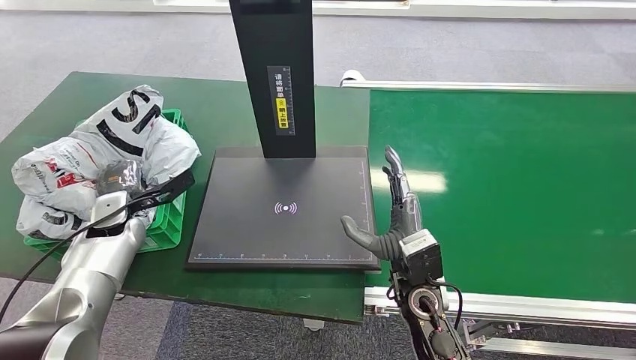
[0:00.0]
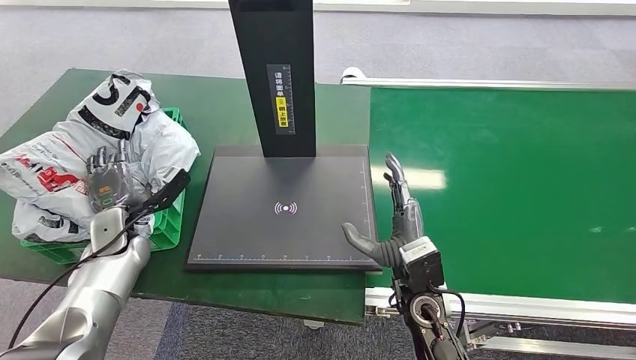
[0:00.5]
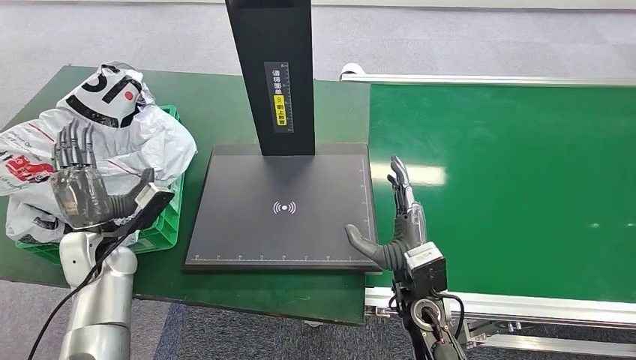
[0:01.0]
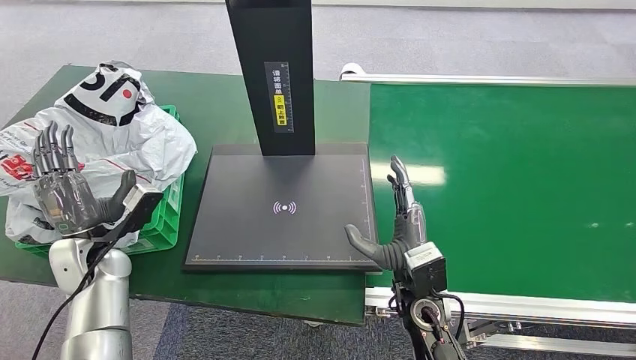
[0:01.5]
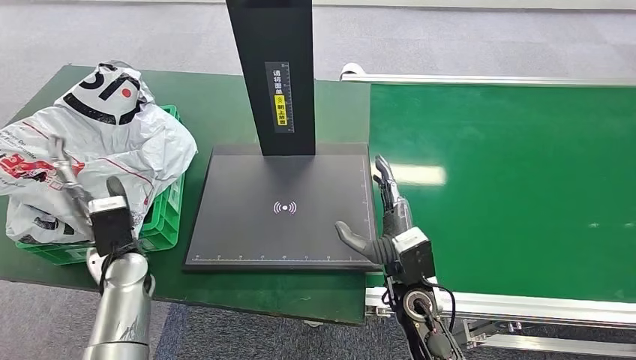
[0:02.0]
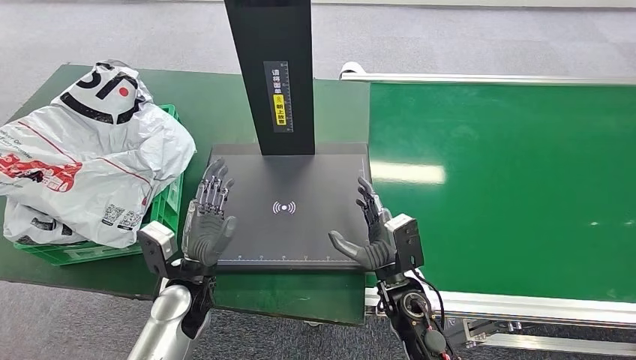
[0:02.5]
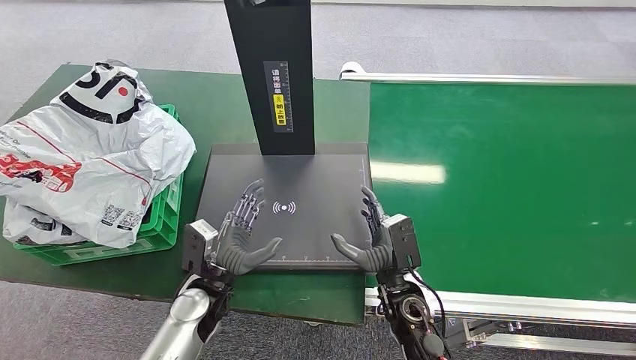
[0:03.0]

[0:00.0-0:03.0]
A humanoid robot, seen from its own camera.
Step, 0:00.0 to 0:03.0: Place the package into the parcel locker.
0:01.5 to 0:03.0: The left hand travels to the right by roughly 20 cm.

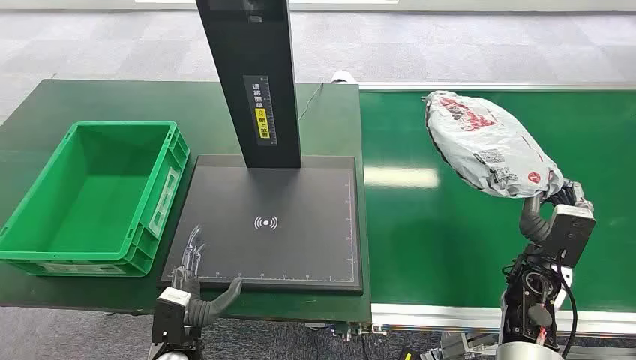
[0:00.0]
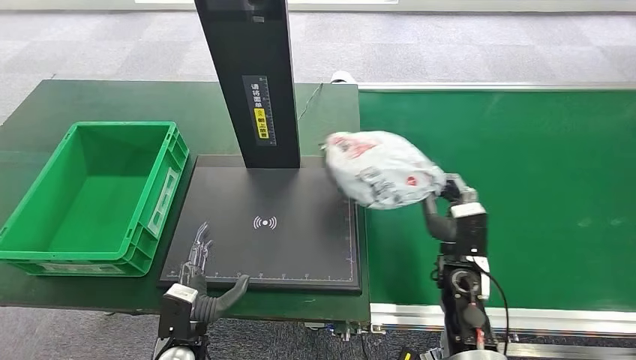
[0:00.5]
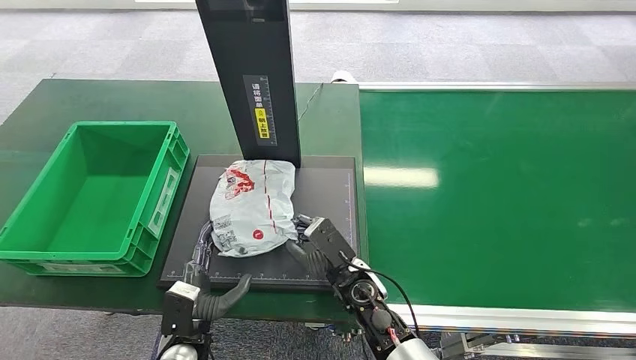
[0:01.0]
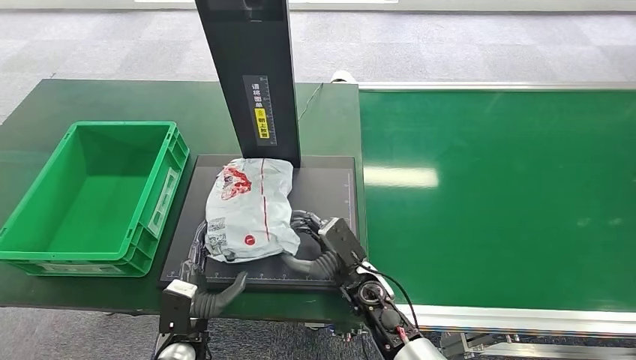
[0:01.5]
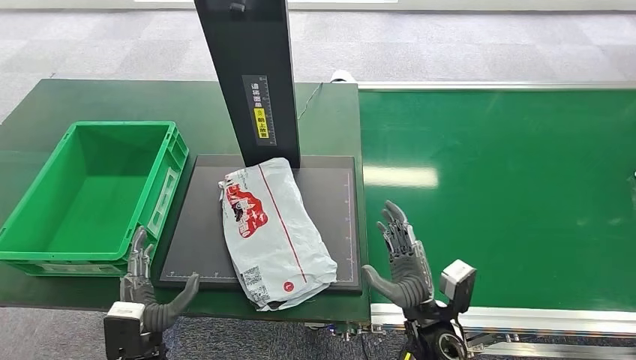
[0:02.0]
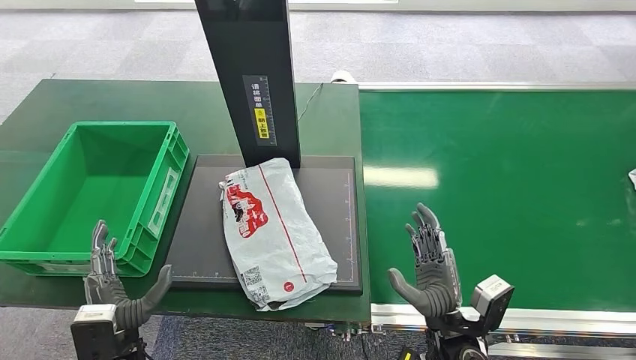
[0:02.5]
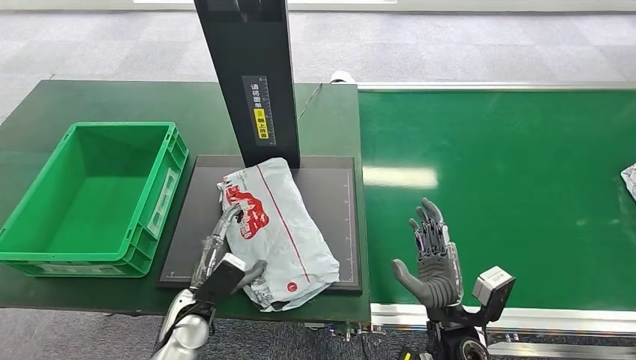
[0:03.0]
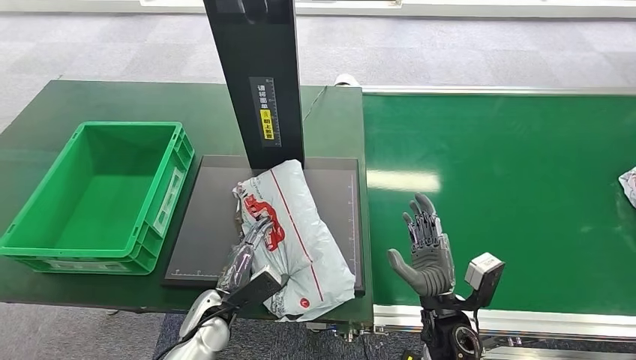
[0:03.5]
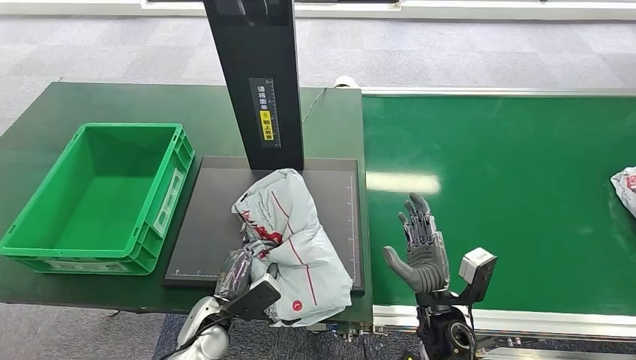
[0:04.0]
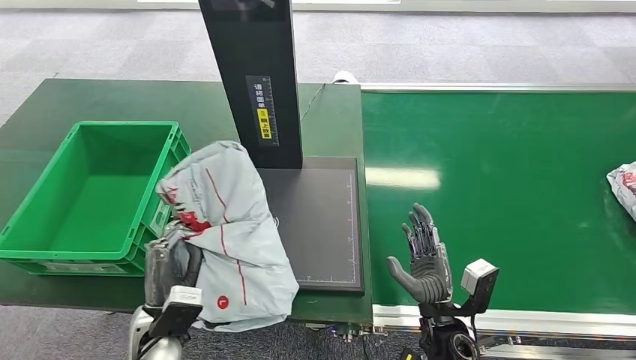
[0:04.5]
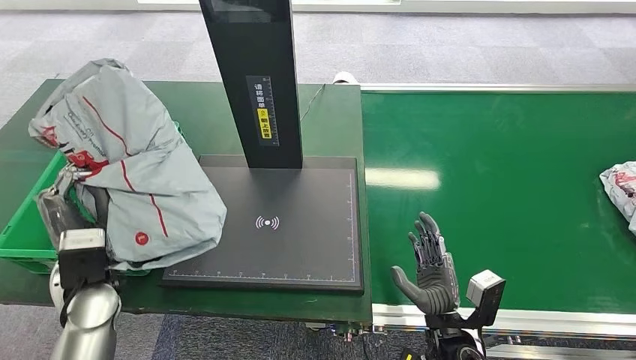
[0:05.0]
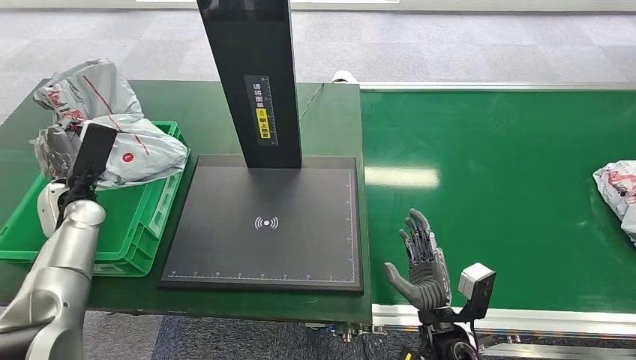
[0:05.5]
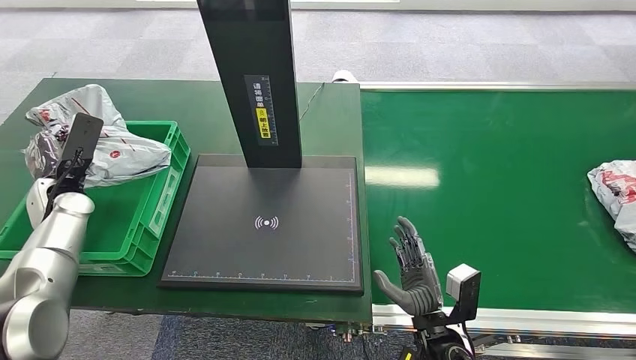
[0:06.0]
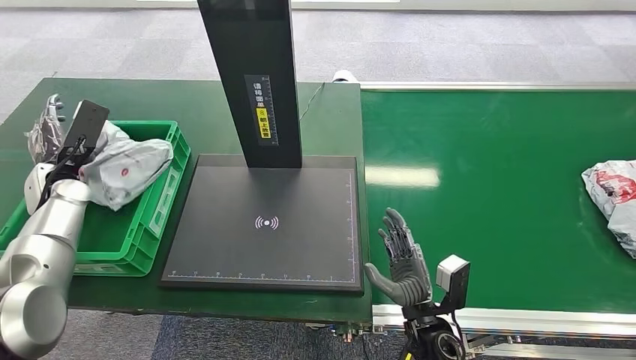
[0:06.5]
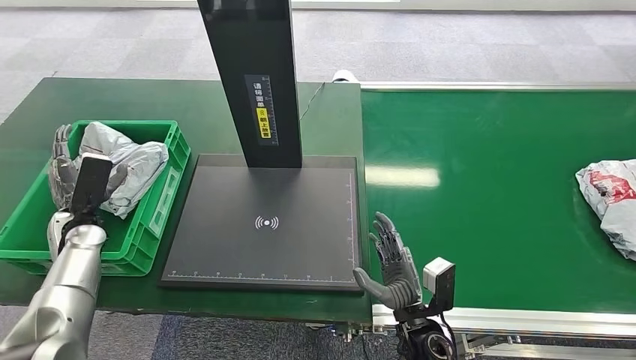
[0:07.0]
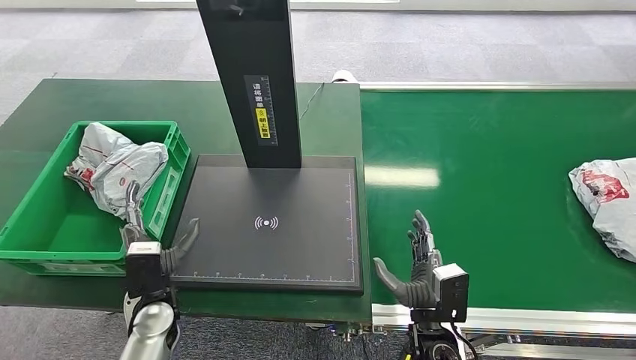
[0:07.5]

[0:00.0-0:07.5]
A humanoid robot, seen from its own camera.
0:05.5 to 0:07.5: The left hand goes some 25 cm to the right, backward and downward.
